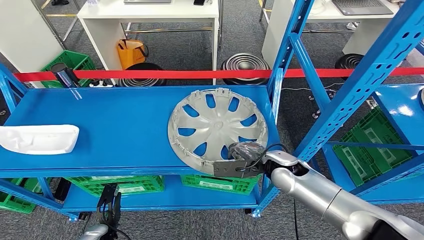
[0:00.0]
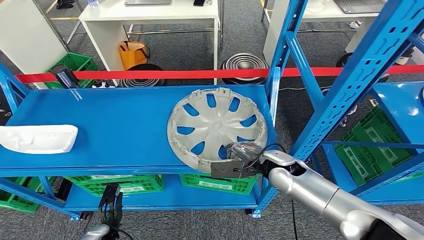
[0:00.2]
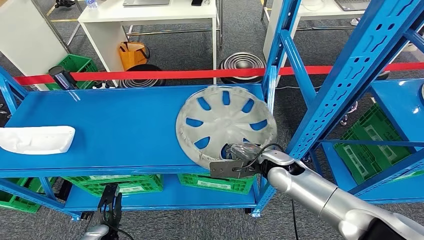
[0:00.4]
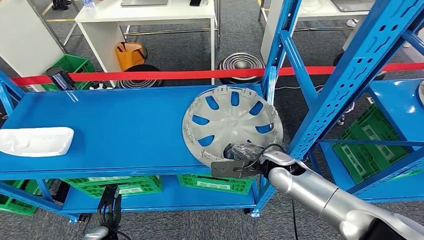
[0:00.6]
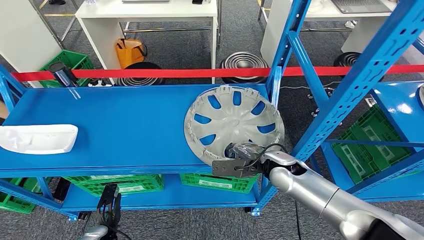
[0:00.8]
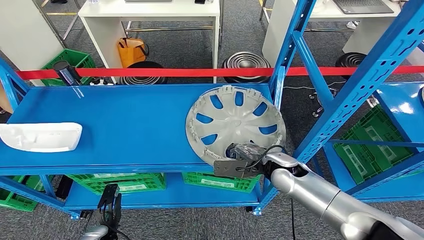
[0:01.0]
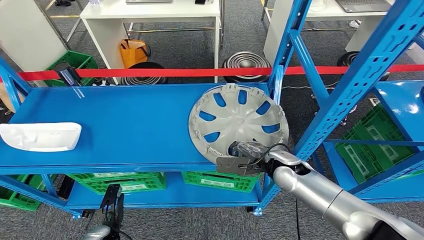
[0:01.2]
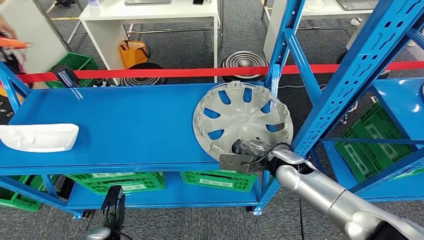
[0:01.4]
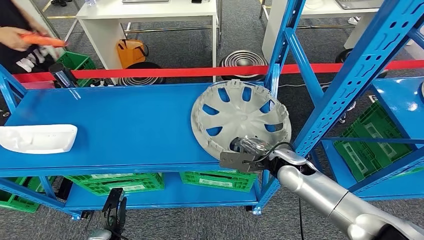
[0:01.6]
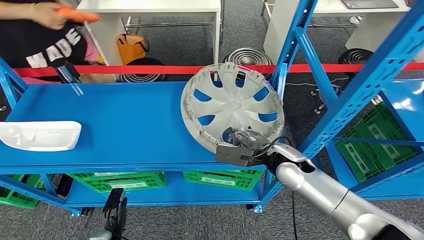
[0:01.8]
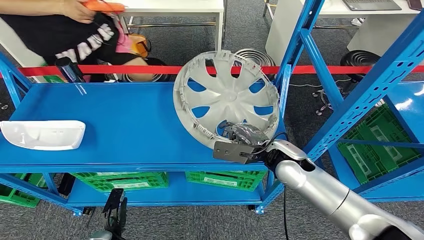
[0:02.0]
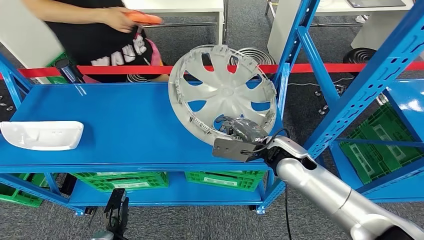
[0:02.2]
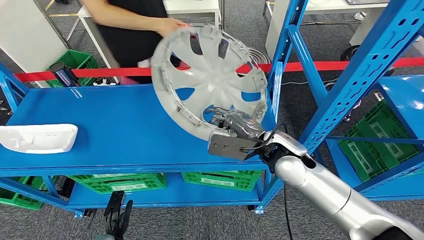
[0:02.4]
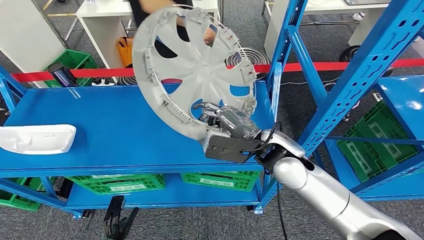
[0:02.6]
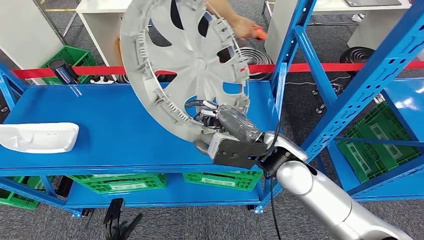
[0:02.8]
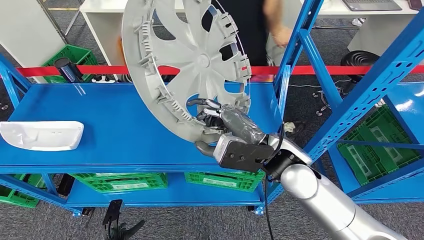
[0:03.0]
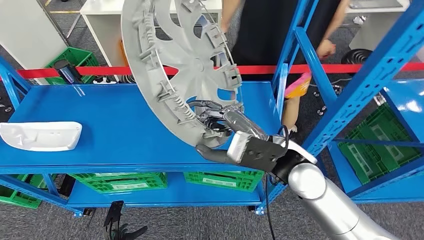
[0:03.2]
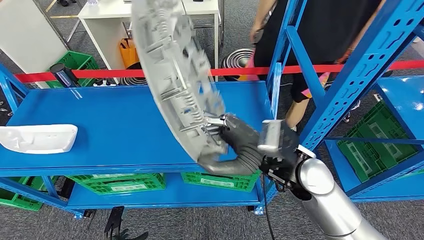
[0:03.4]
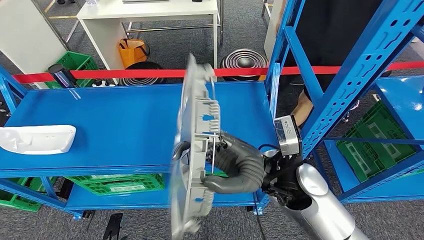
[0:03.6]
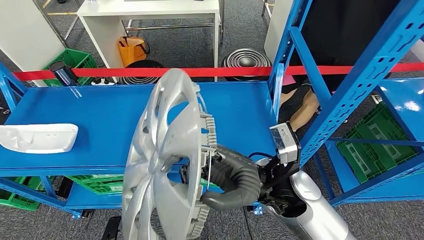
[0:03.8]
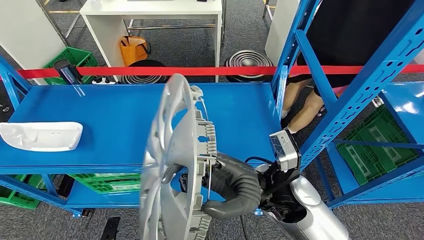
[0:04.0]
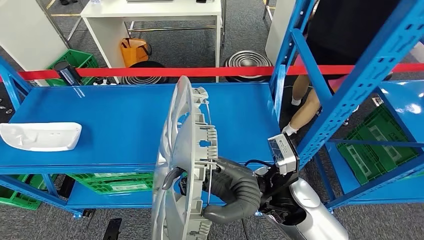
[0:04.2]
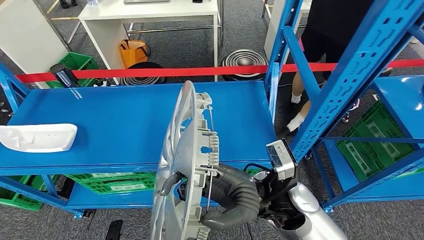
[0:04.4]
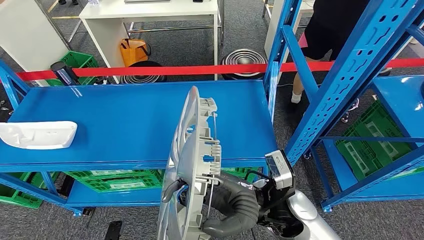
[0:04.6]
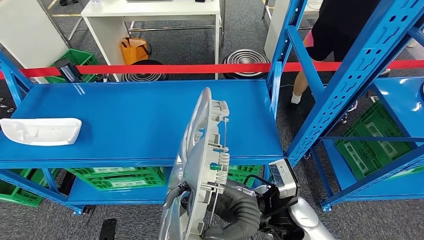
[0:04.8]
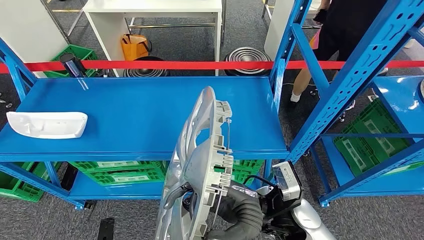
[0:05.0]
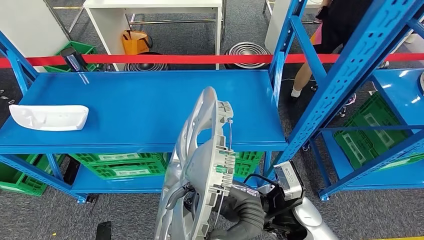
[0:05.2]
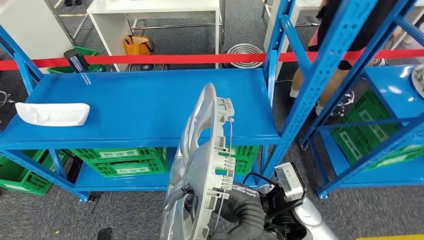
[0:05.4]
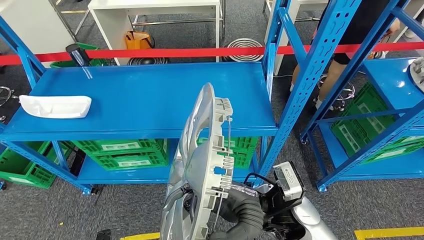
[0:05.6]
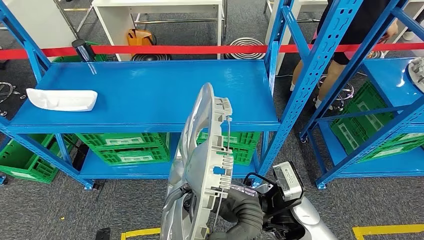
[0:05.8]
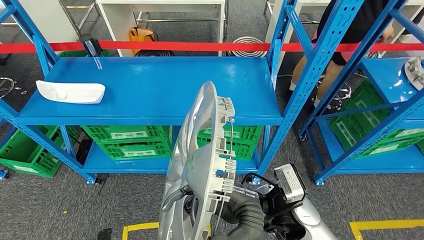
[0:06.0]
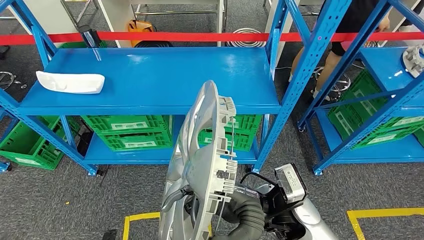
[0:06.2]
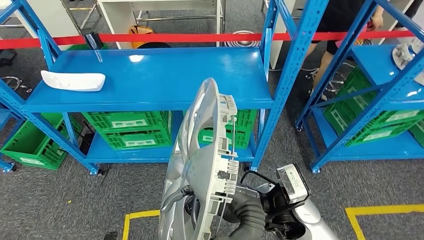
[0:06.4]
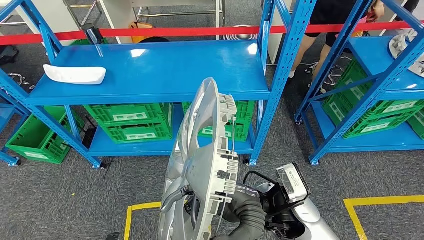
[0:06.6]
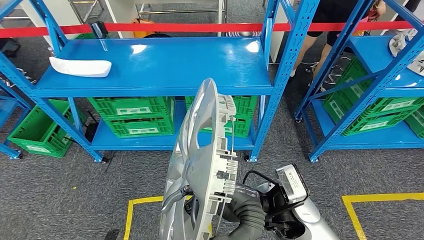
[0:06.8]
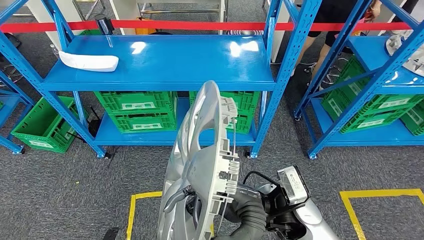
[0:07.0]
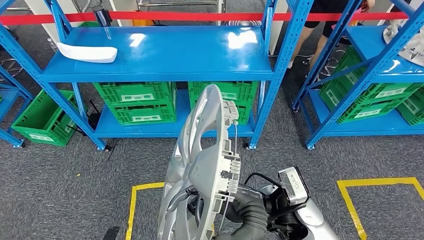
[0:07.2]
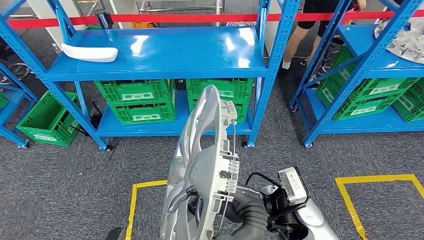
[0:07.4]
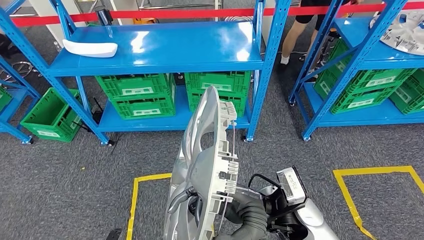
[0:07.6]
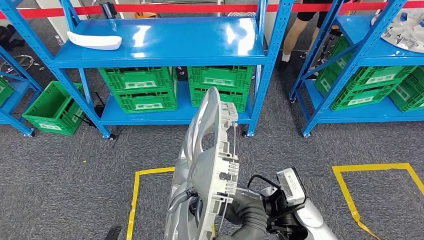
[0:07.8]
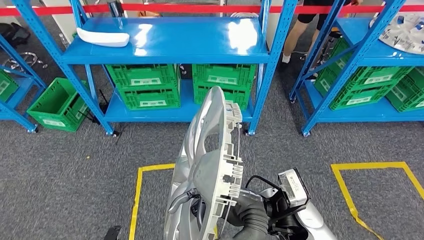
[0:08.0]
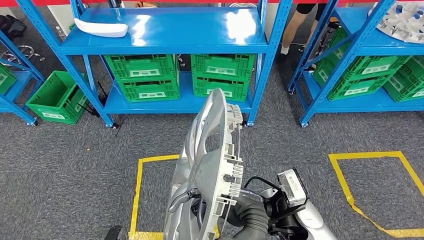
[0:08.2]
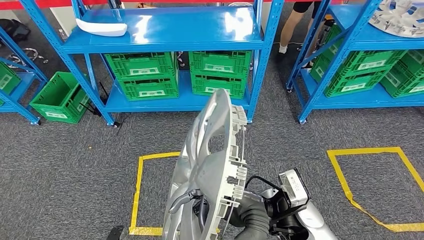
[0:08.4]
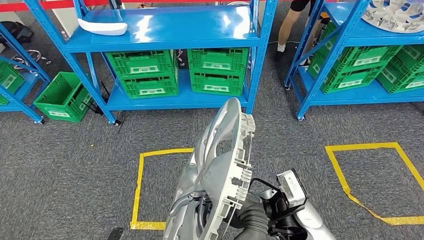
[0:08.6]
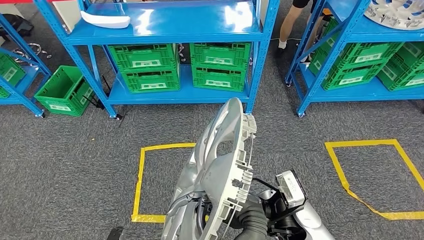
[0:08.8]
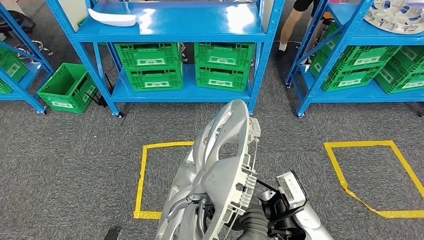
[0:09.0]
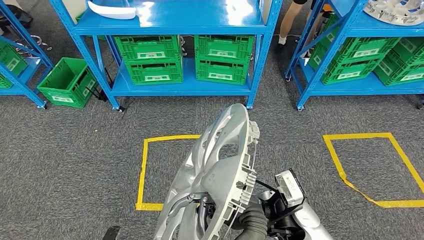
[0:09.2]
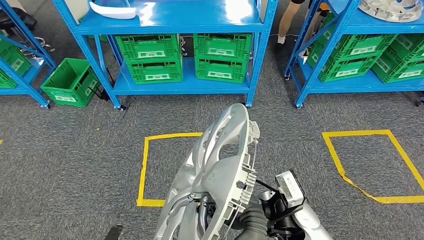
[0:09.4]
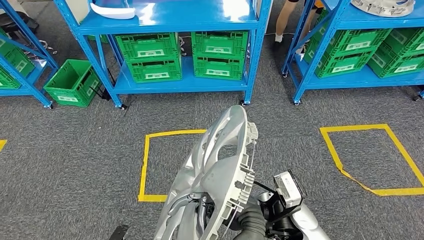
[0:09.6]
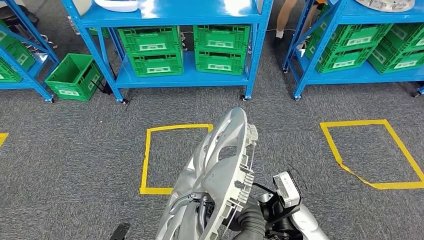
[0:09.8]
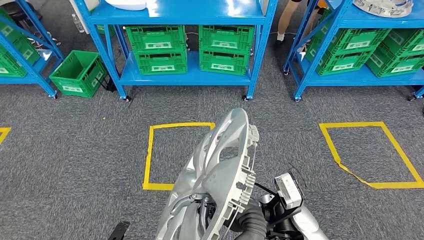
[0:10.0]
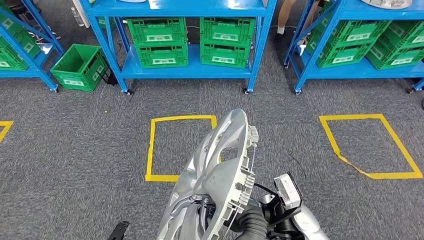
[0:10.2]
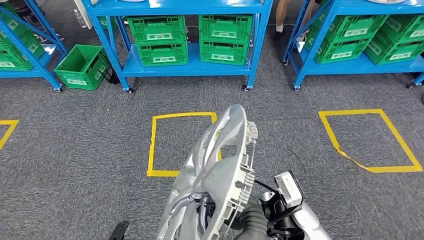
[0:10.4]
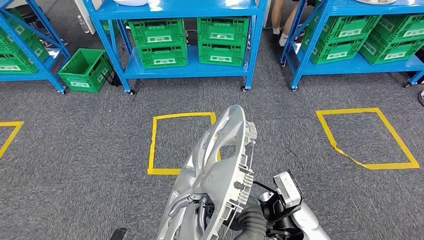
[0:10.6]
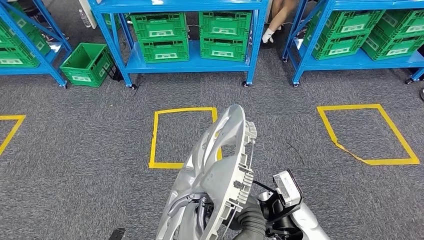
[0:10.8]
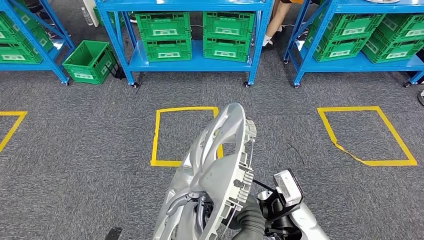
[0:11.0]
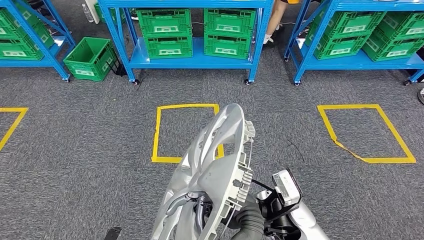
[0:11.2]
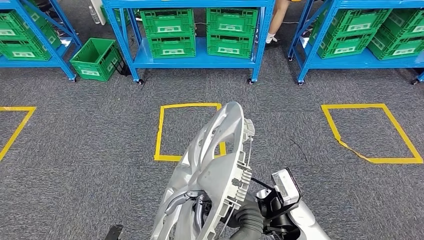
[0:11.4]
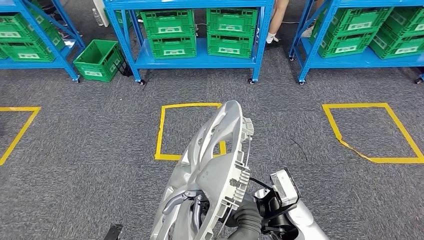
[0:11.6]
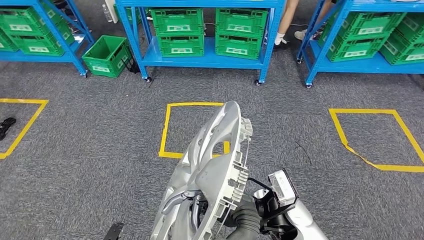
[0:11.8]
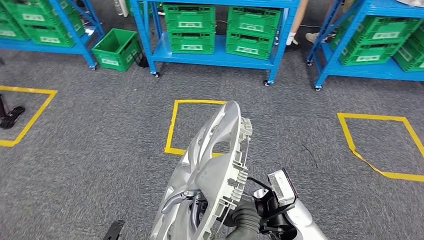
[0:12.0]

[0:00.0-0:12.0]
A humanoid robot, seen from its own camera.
Step, 0:00.0 to 0:03.8: Pick up the small component from the shelf.

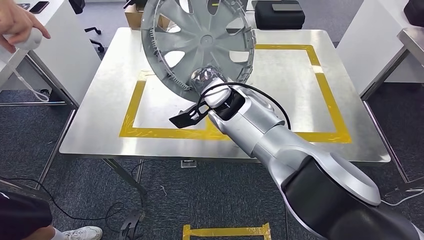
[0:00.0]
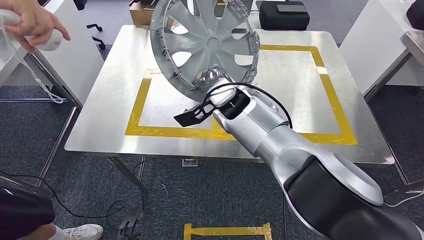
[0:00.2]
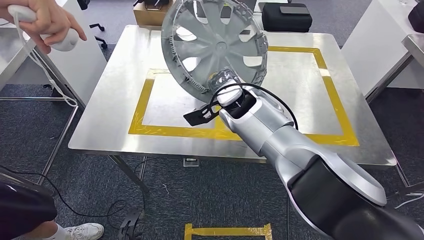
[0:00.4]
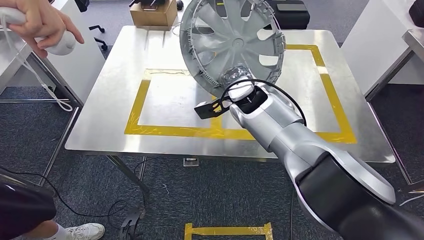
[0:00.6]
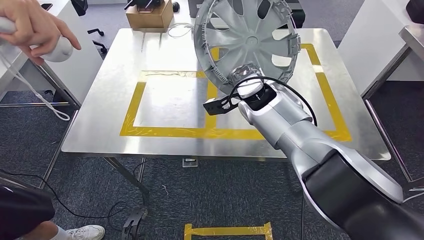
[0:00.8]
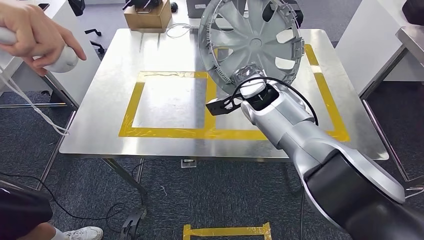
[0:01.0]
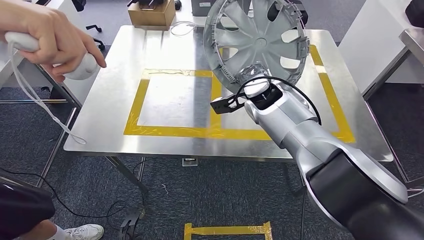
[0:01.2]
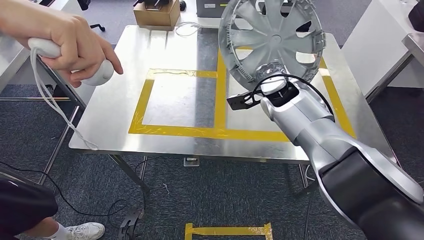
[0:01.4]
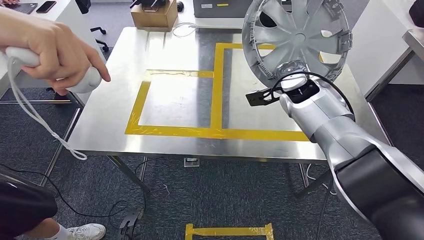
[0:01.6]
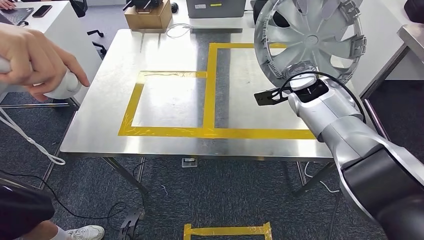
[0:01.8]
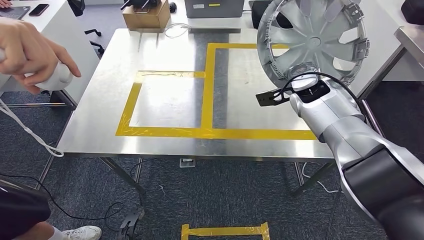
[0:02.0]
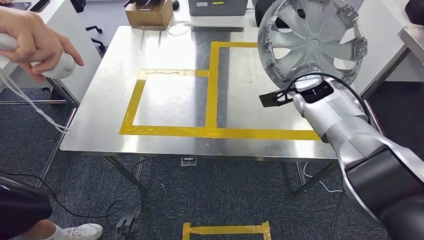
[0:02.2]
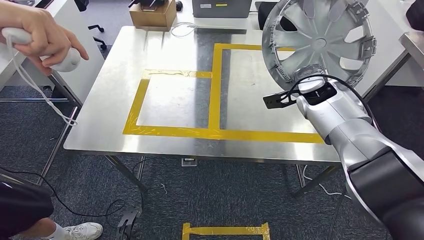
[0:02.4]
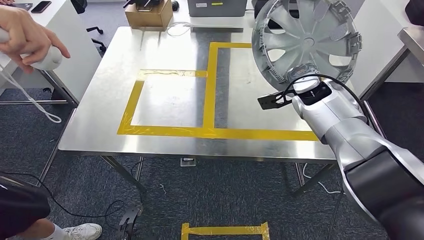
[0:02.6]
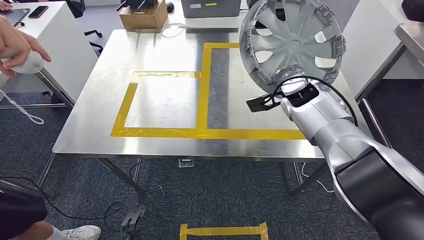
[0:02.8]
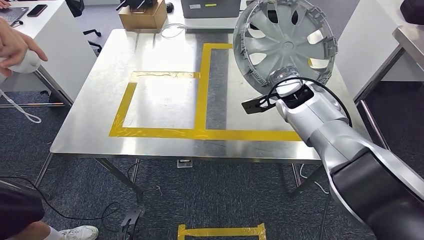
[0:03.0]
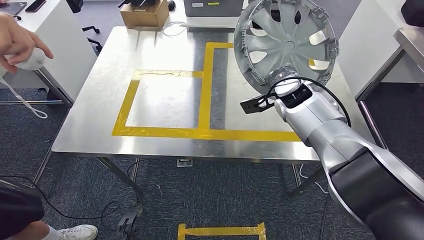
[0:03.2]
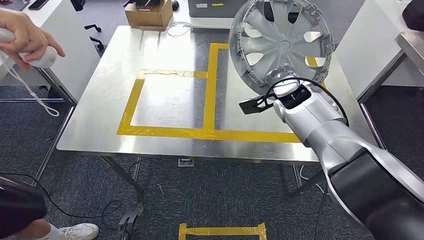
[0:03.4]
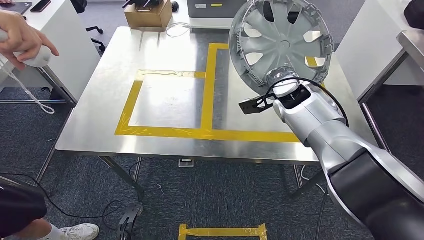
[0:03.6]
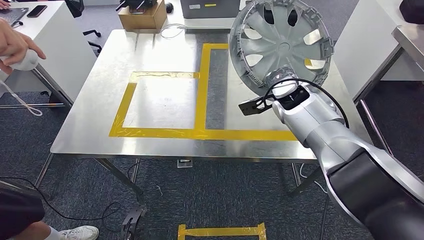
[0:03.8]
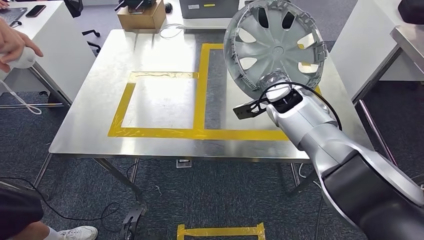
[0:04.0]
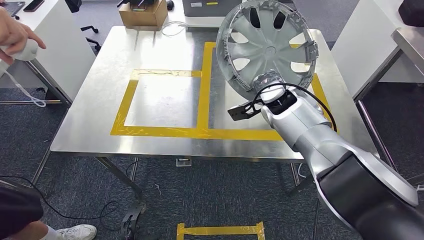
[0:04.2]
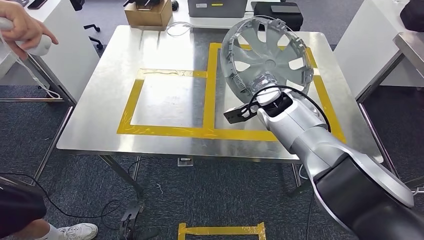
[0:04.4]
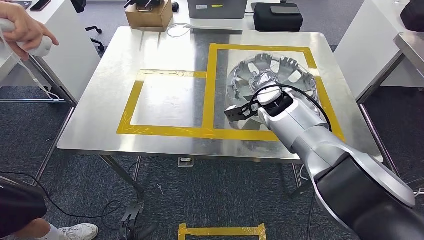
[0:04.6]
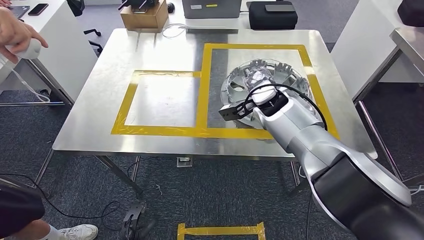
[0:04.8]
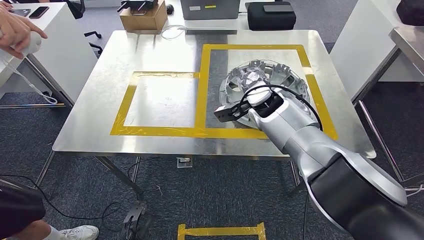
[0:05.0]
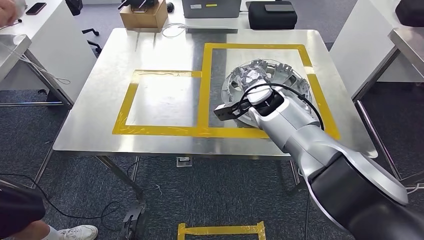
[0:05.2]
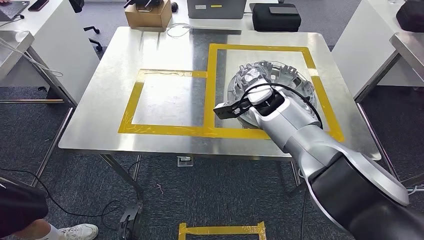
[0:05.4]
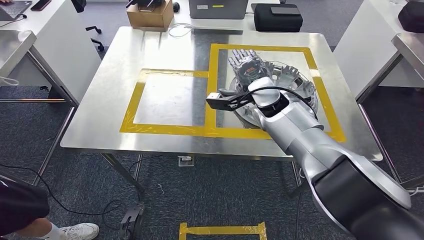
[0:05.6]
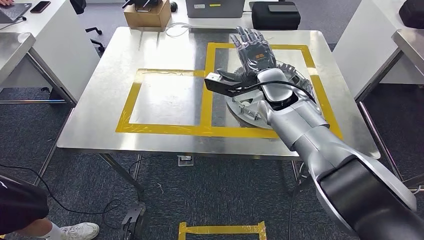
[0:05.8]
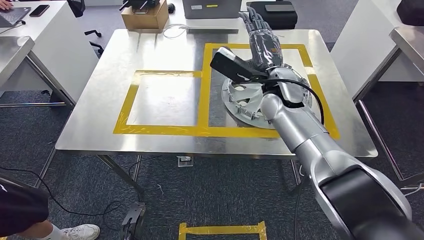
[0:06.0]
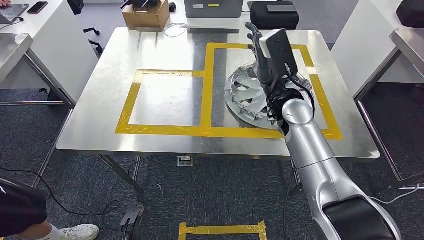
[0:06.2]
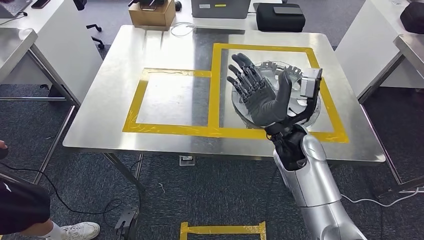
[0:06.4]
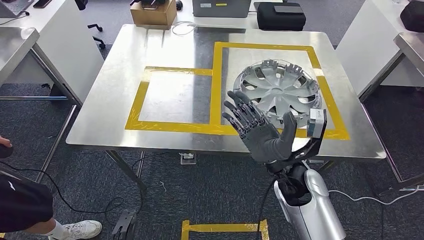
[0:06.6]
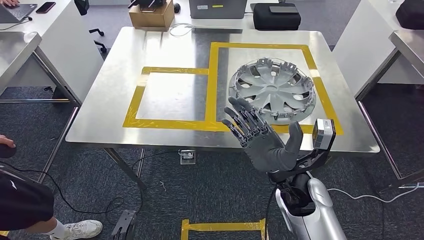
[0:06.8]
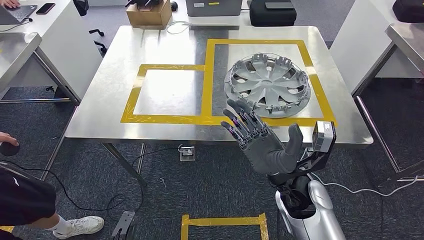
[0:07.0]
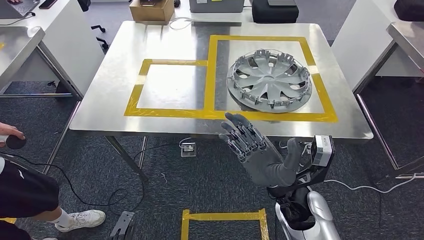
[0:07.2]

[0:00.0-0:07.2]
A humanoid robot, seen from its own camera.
Step, 0:00.0 to 0:07.2: Insert the small component into the corresponding slot on the workbench.
